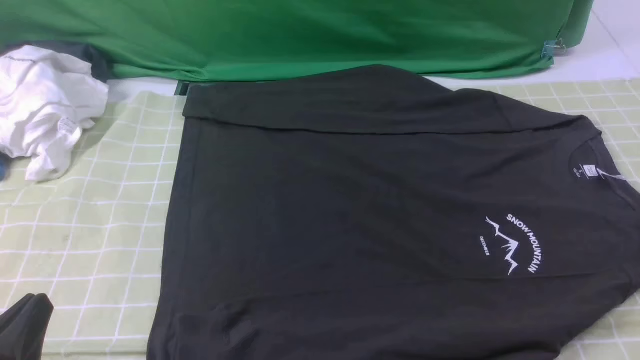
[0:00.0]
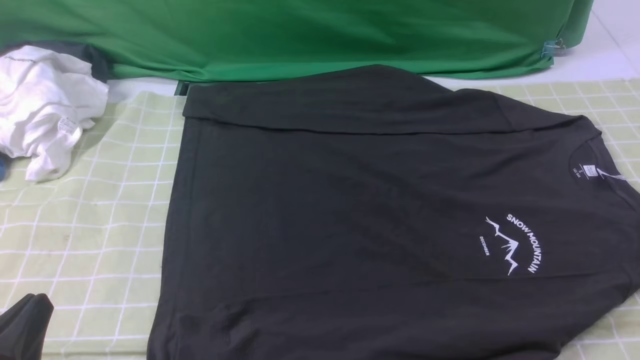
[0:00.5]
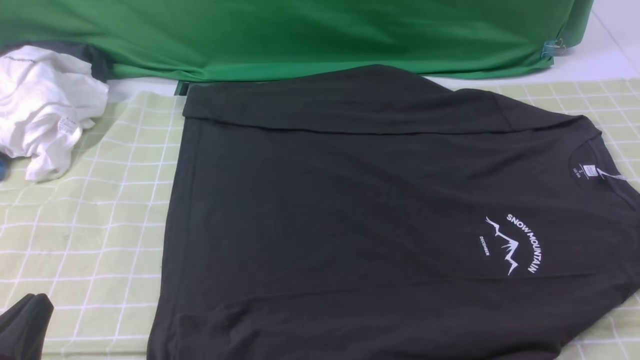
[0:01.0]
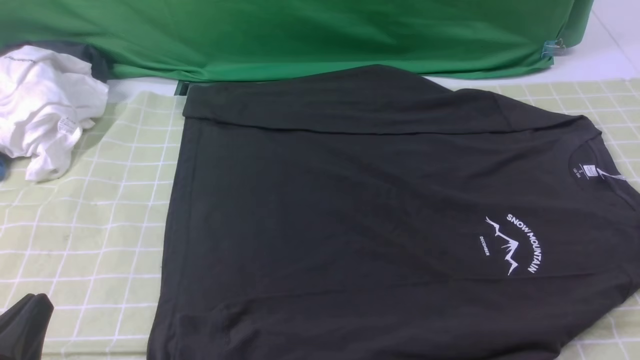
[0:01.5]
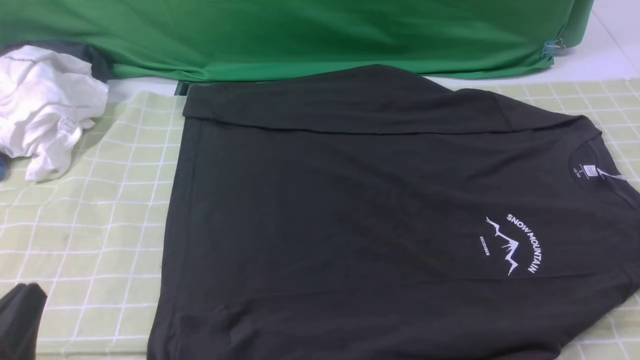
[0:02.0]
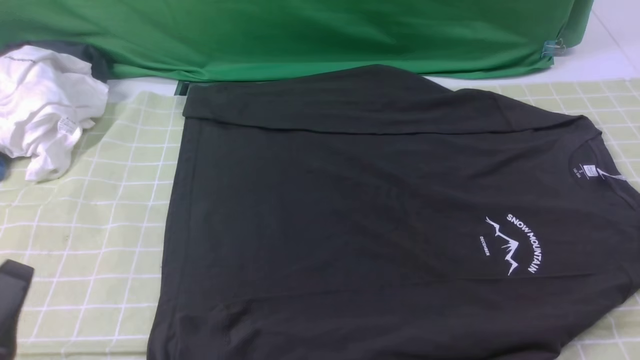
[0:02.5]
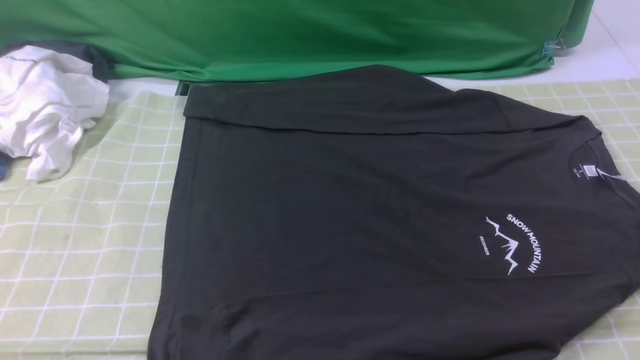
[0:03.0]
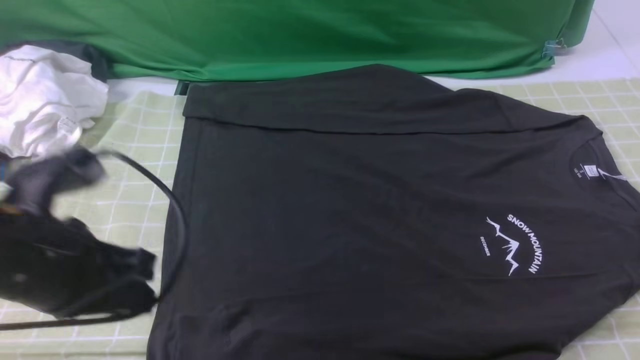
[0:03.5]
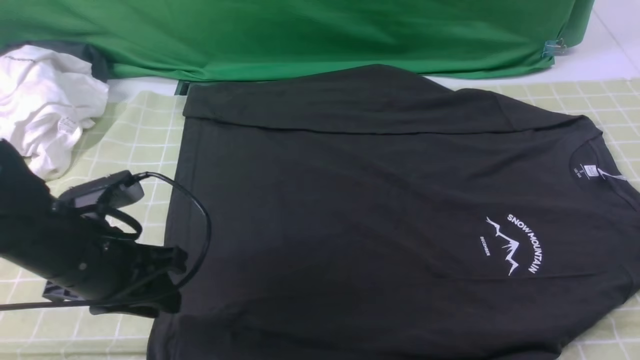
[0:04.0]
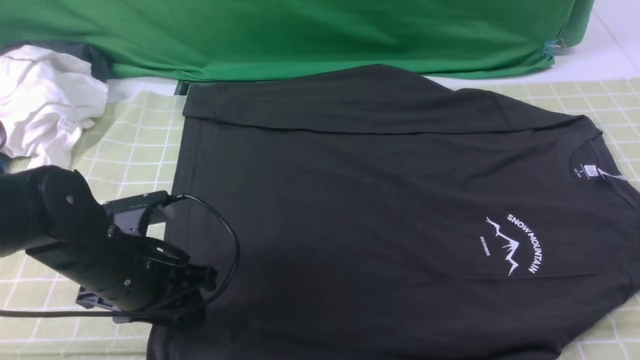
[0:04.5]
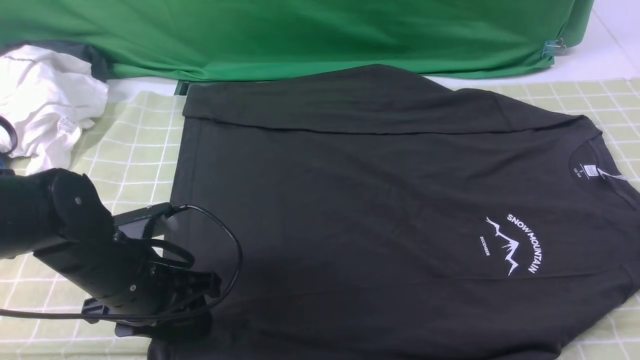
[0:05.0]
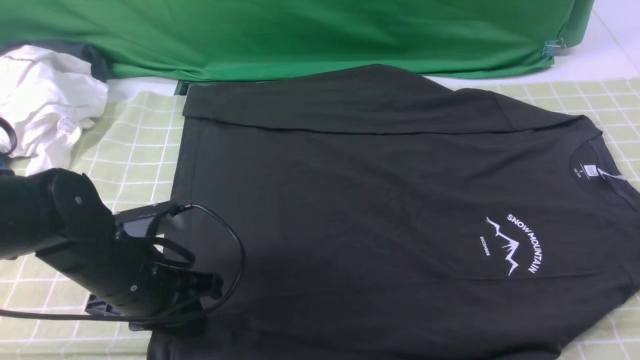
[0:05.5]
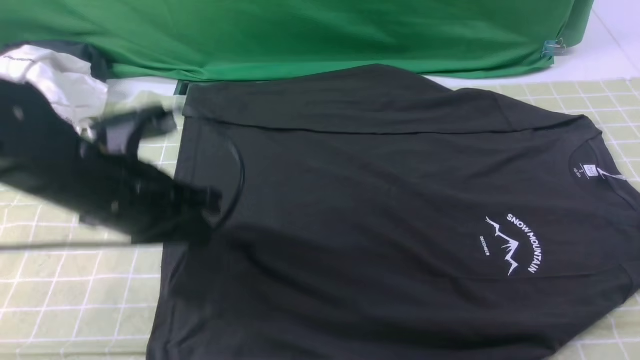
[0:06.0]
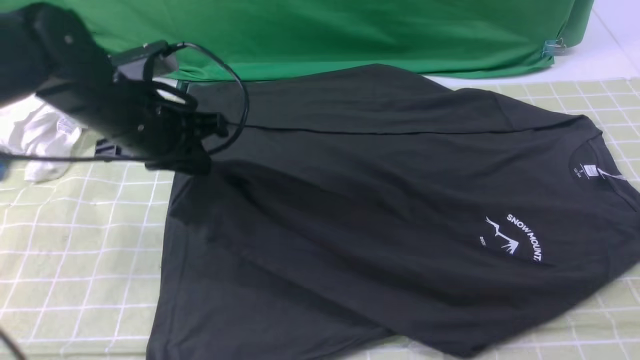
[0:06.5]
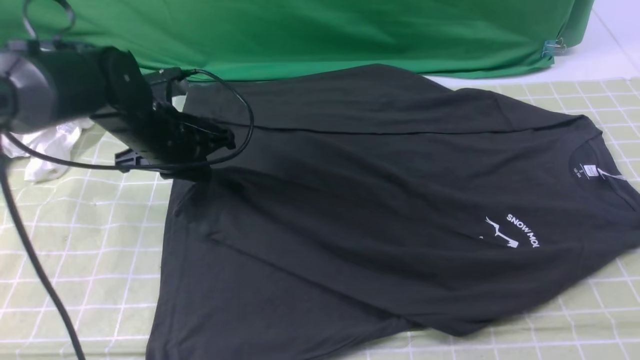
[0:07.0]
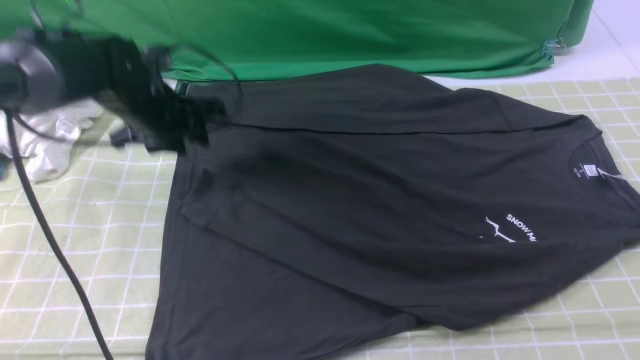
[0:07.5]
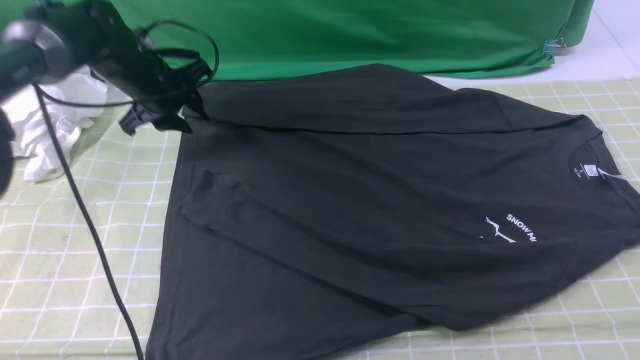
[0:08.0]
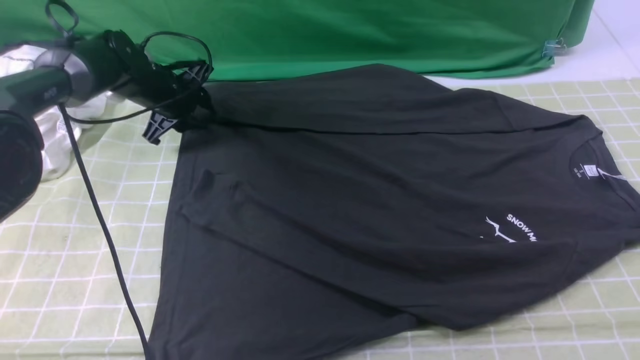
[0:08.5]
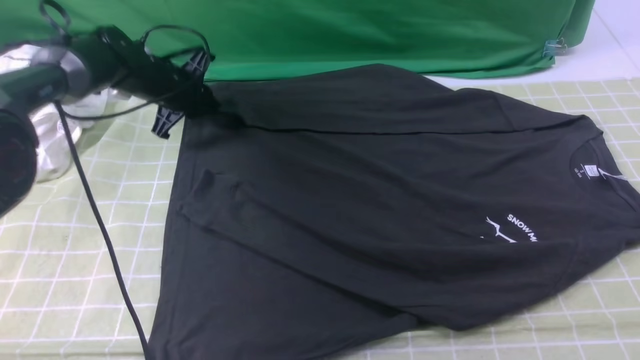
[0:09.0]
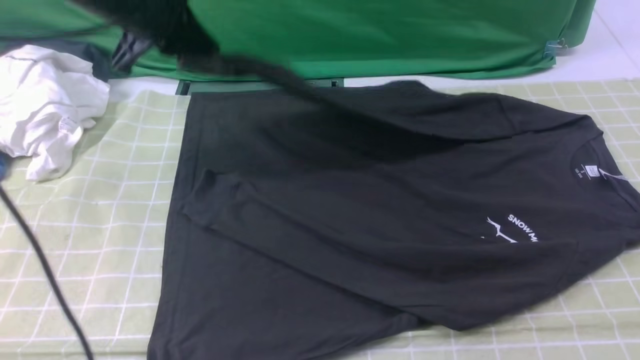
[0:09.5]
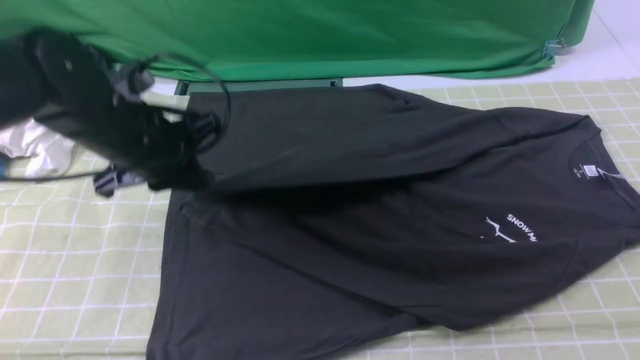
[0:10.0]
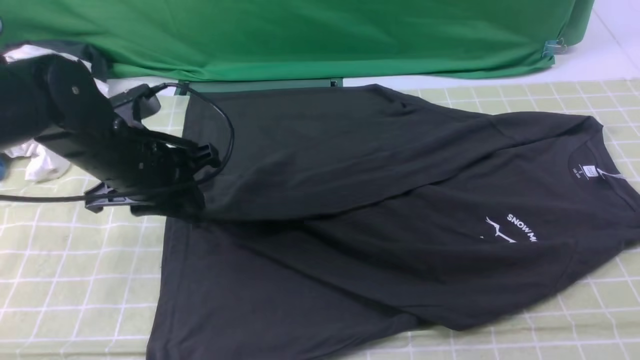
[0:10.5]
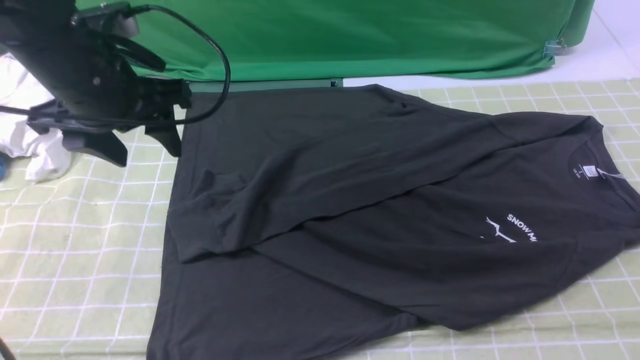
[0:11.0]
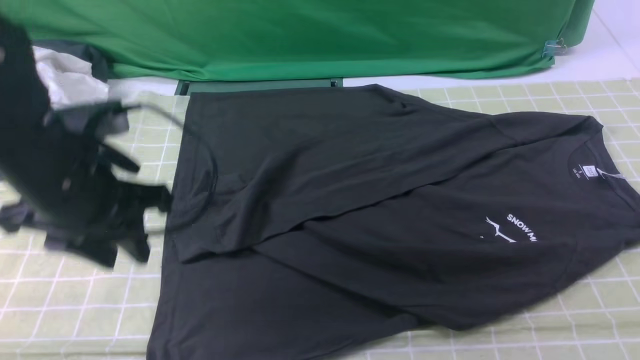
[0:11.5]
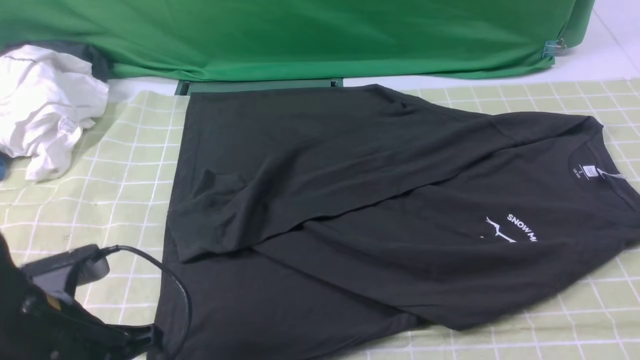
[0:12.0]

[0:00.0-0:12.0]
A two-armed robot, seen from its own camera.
Step, 0:00.0 to 0:05.5: use the left arm to clamp the cuff closest to it.
Step, 0:06.0 to 0:07.0: use the left arm to drag and place the cuff at the centered position on the left edge of the fabric.
Step, 0:07.5 to 0:08.5: use the left arm to clamp the cuff farthest from it.
Step, 0:09.0 to 0:10.5: use the left arm to drag and drop the cuff onto the cuff closest to the left arm.
0:02.0 to 0:04.0: The left gripper heads forward, covering about 15 cm. The right gripper is displaced upward and forward by some 15 cm, and closes its fingers.
0:04.0 to 0:06.0: The left gripper shifts by about 5 cm, and closes up.
0:06.0 to 0:08.0: The left gripper shifts about 25 cm forward, and opens its fingers.
0:08.0 to 0:10.0: The left gripper travels backward by about 15 cm, and closes its fingers.
0:10.0 to 0:12.0: The left gripper moves backward, some 15 cm, and opens, then closes once more. Meanwhile the right gripper closes.

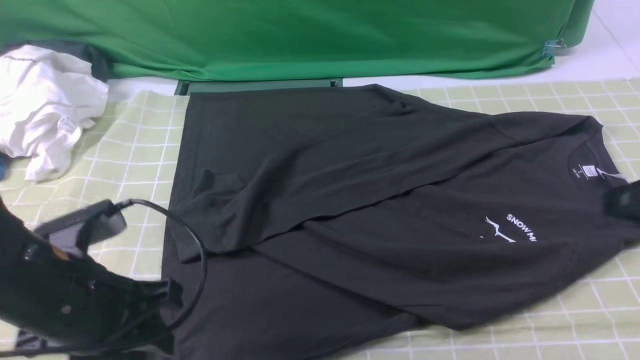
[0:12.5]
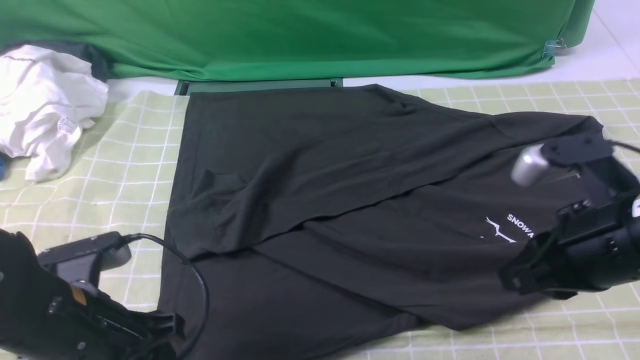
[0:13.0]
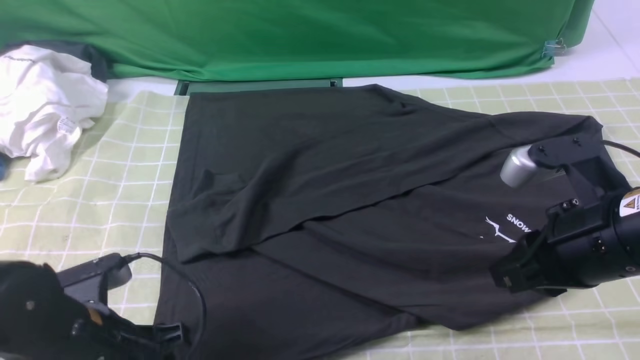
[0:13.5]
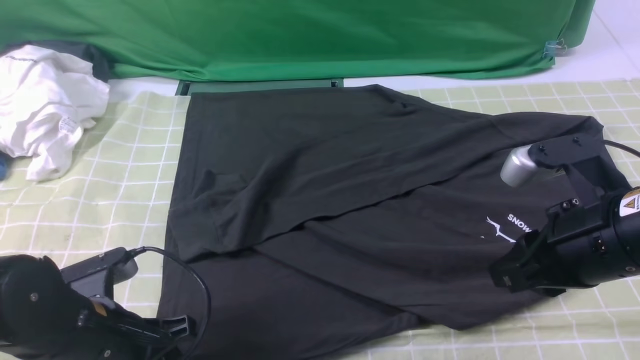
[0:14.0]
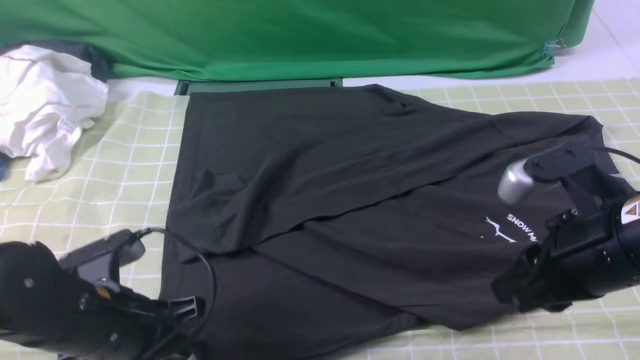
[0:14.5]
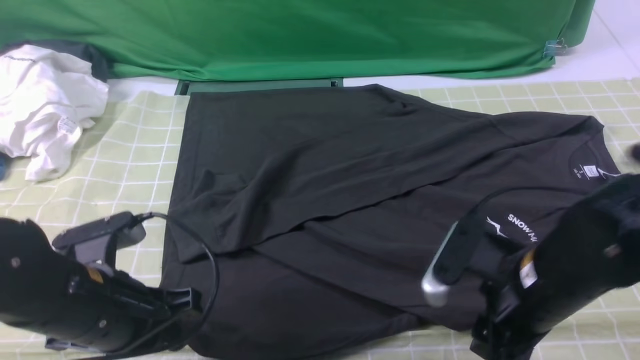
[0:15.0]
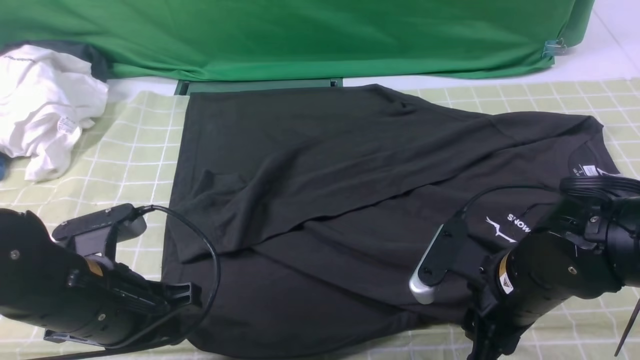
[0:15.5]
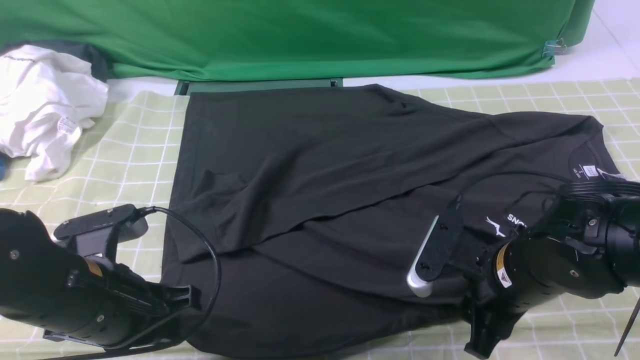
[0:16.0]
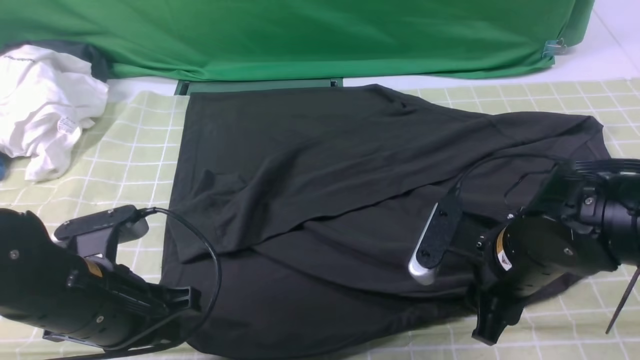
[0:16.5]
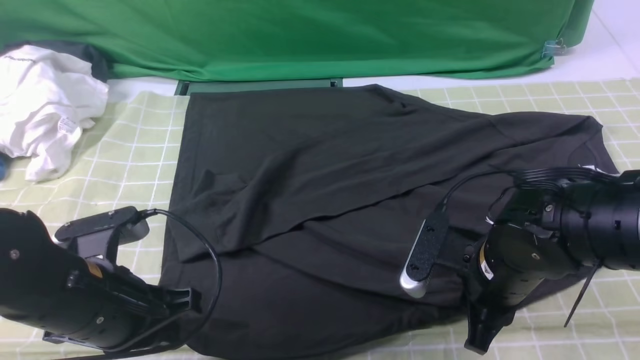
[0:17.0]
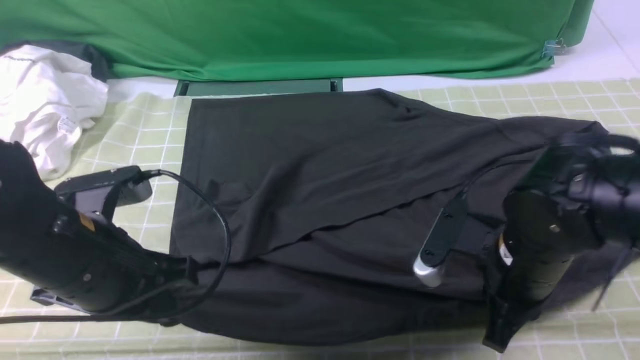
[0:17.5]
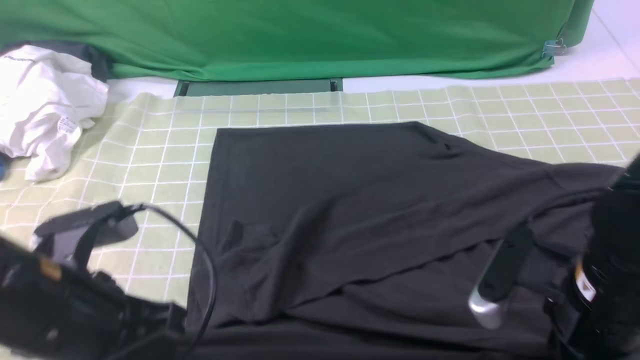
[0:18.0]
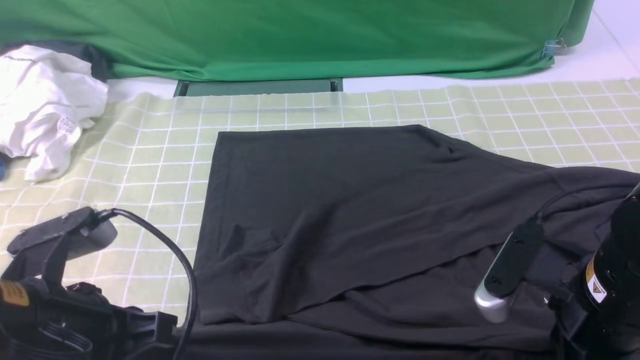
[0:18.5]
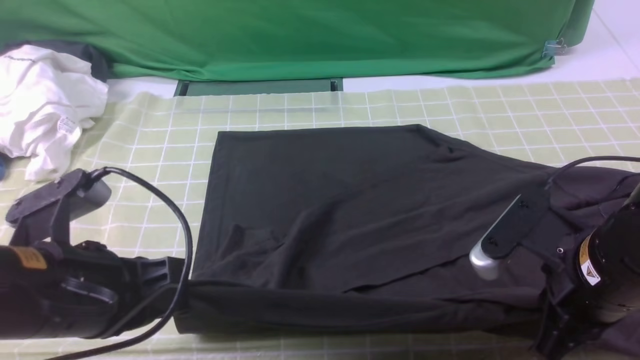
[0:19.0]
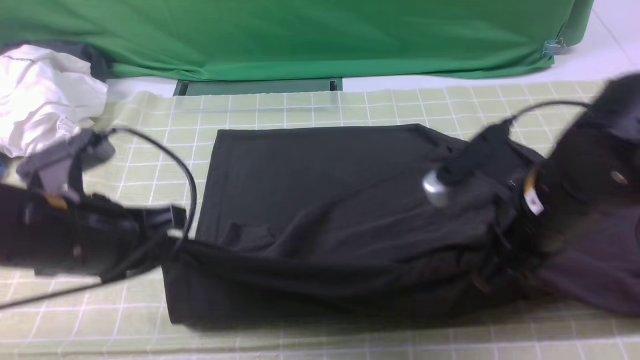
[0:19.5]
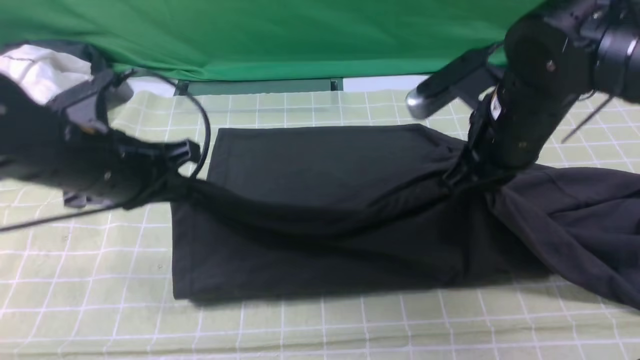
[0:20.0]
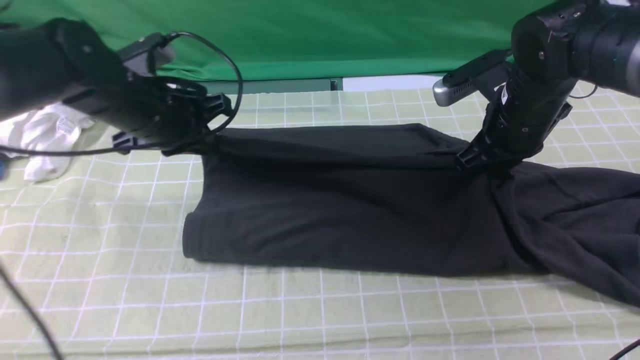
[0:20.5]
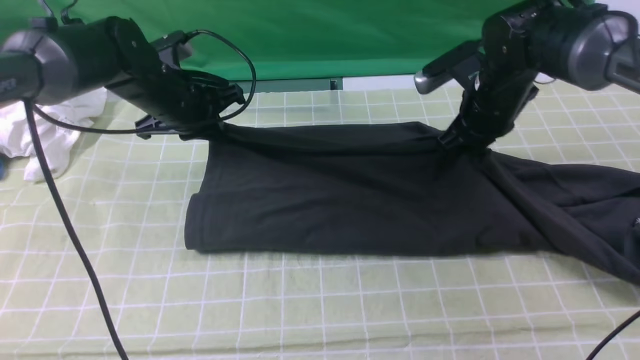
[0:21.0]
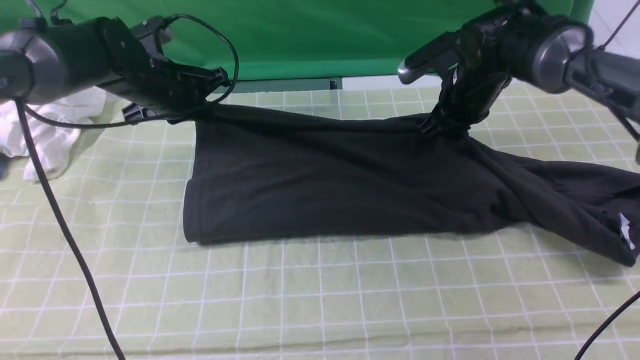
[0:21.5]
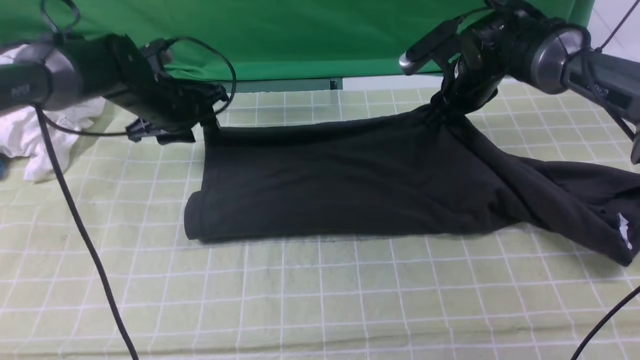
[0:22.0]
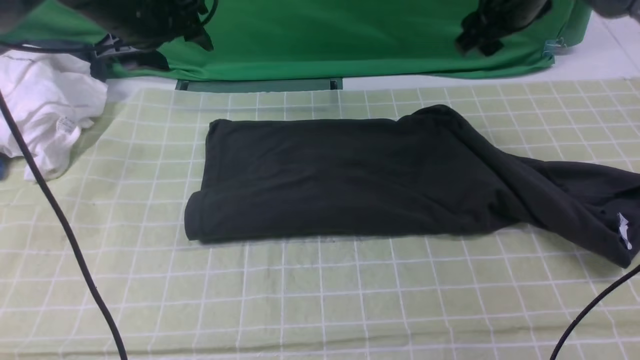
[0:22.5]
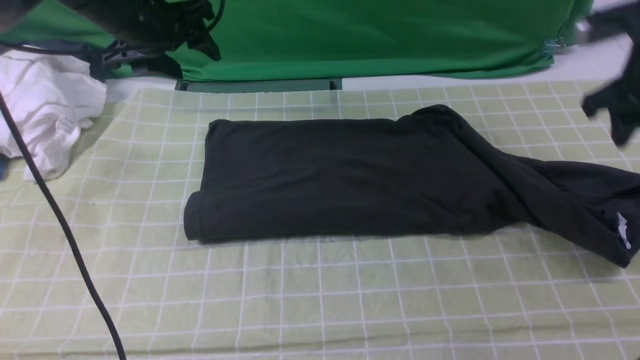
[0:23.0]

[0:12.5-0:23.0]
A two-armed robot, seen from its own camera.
Step, 0:12.5 to 0:16.0: use both arms simultaneously to clamp the lower edge of the clothing fabric.
0:12.5 to 0:14.5: The right gripper goes about 10 cm to the left and downward. The left gripper closes.
0:14.5 to 0:16.5: The right gripper shifts roughly 10 cm downward and to the left.
0:16.5 to 0:19.0: Both grippers move upward, roughly 5 cm. The right gripper closes its fingers.
0:19.0 to 0:21.0: Both grippers move forward, about 25 cm.
0:21.0 to 0:23.0: The right gripper shifts roughly 15 cm to the right, and opens its fingers; the left gripper travels upward by approximately 10 cm, and opens.
